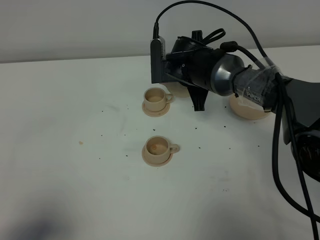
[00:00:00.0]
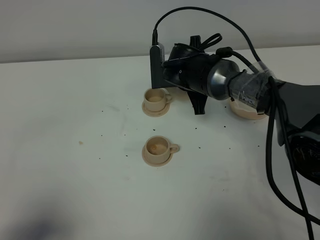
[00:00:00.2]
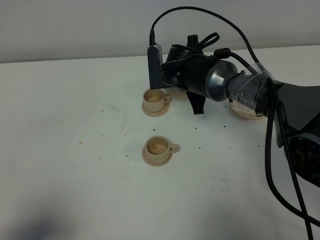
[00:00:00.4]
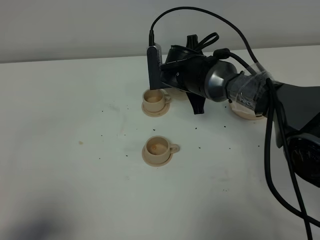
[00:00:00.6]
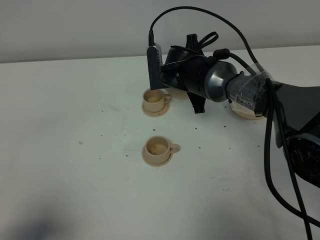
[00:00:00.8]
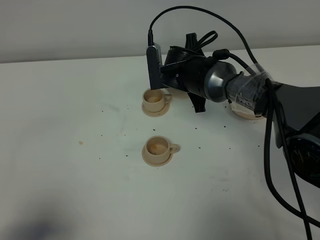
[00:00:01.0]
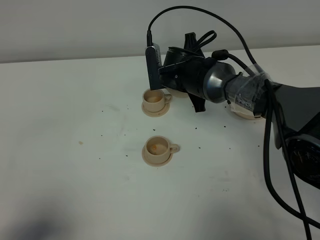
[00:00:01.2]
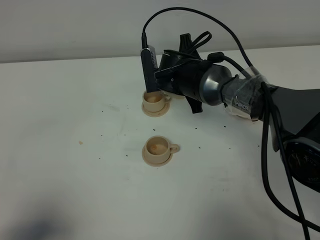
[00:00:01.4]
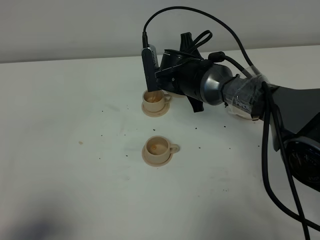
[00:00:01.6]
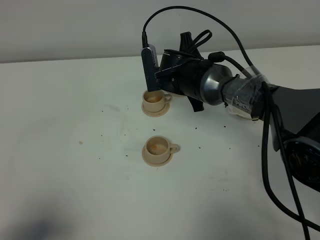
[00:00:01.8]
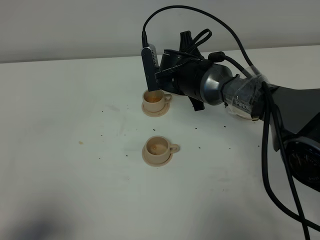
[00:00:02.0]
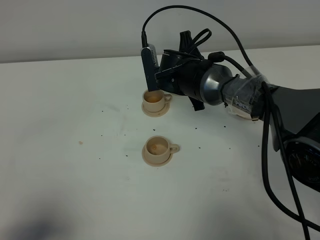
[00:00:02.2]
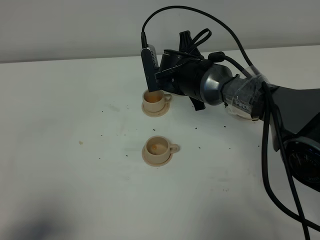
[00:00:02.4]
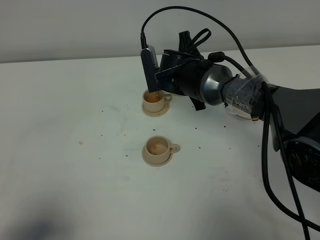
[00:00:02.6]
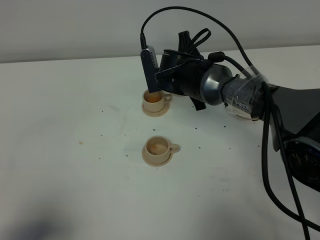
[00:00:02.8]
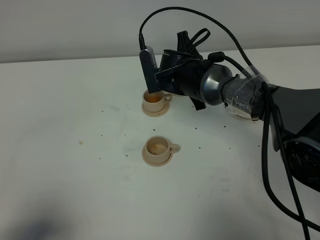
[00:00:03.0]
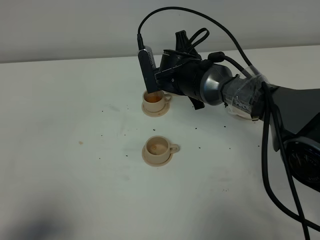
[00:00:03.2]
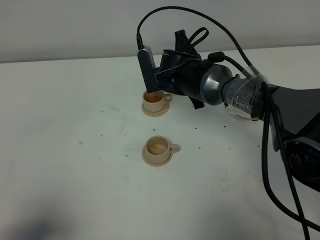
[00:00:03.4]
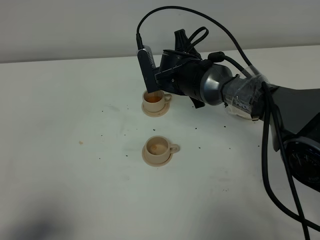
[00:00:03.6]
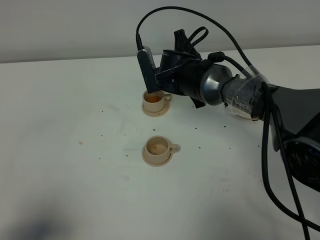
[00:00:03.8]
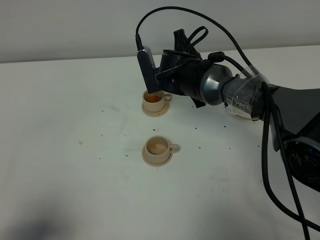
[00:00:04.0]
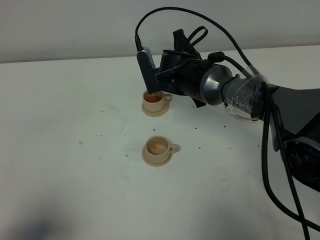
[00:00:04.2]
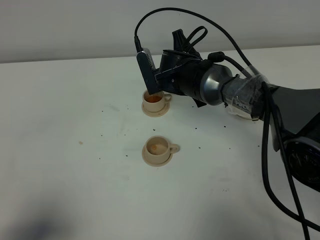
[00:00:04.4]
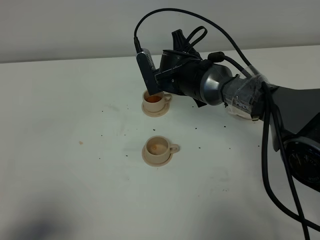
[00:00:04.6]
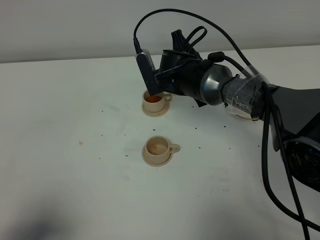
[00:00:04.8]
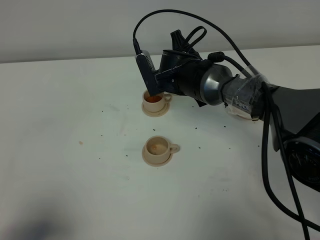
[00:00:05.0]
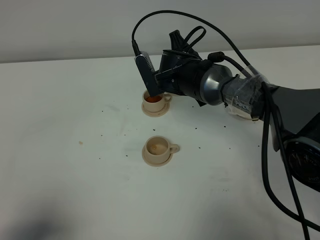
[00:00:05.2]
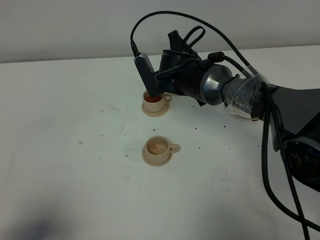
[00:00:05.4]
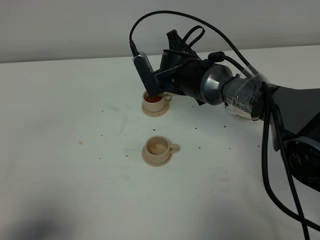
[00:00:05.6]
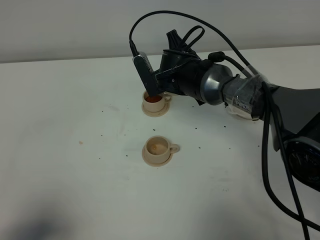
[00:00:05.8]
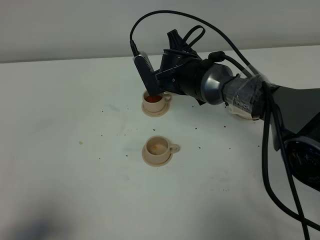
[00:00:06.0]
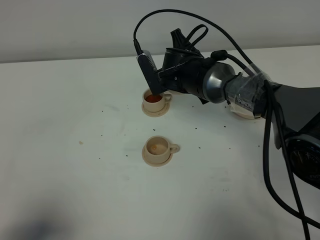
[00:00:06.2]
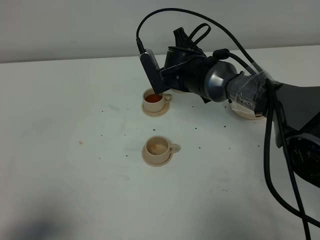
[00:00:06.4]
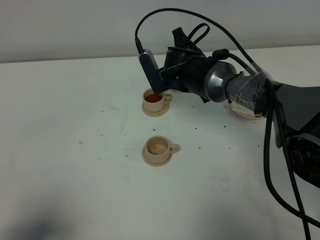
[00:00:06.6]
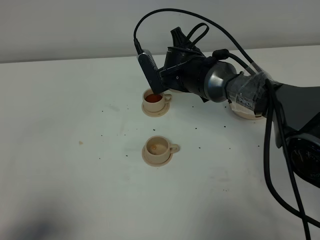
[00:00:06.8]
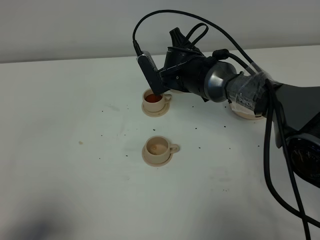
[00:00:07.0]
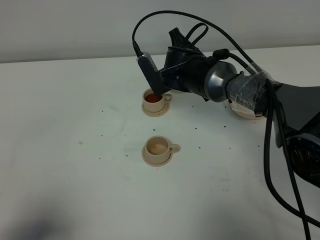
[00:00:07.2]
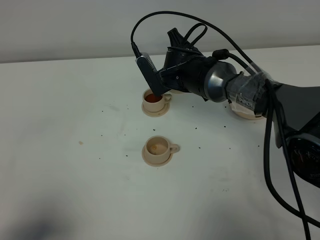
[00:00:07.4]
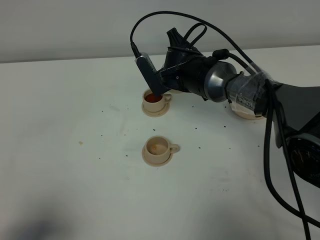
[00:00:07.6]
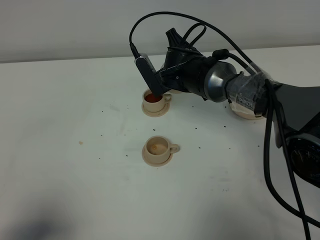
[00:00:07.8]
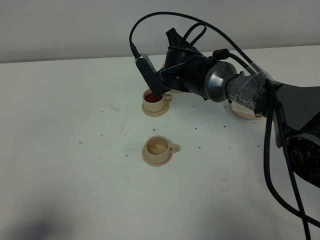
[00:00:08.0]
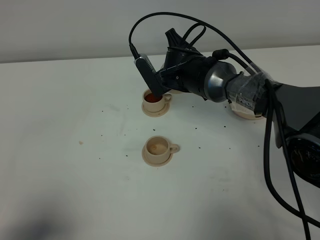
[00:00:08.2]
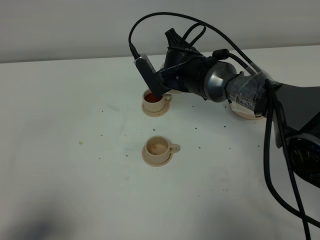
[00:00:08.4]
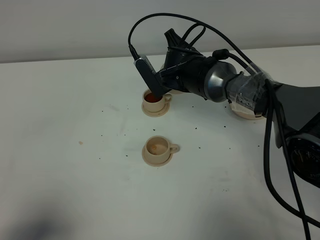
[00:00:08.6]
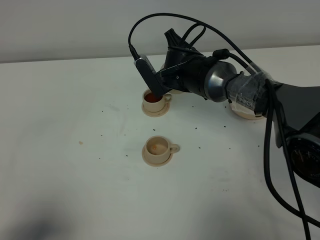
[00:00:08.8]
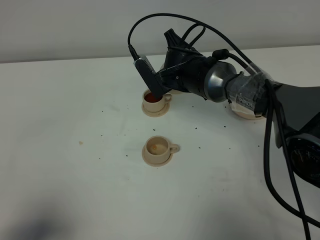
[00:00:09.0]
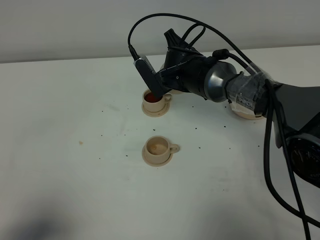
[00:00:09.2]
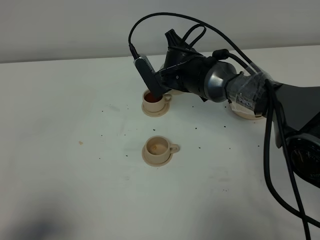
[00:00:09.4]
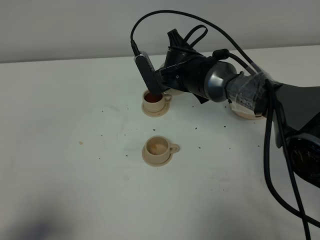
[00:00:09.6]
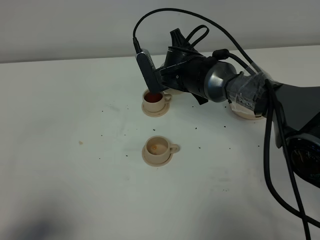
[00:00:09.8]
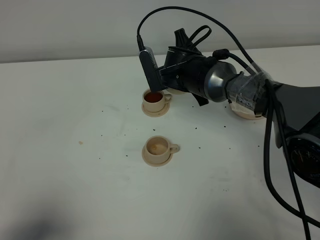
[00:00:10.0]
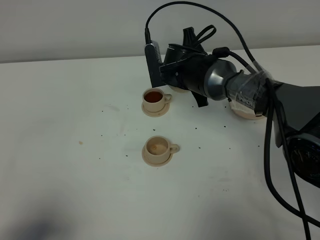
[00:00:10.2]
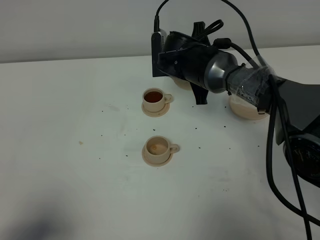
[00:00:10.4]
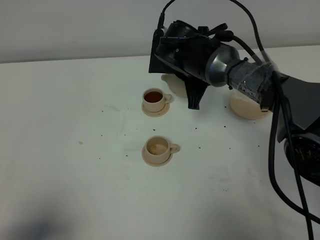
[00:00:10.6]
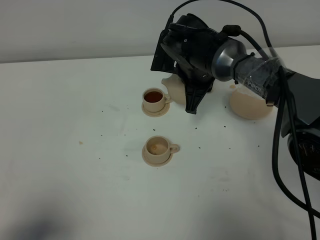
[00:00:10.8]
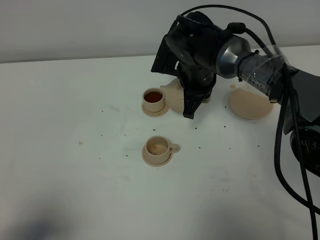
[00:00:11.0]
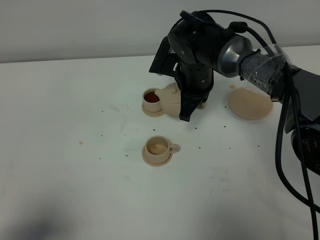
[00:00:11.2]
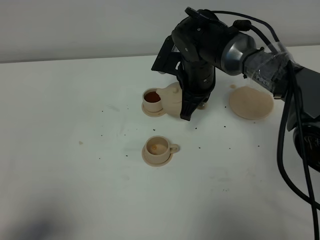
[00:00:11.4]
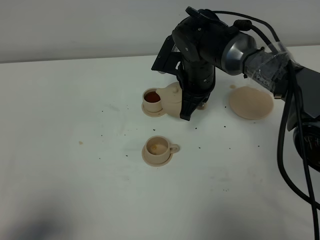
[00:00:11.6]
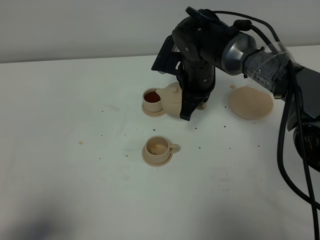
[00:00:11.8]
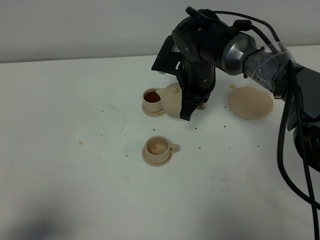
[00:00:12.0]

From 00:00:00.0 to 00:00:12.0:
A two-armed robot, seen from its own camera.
Task of the whole recording: grasp the brown teapot and pour the tea into the two brown teacups one by one, put the brown teapot back in its original place.
From 00:00:00.0 to 00:00:01.6: The grippers make only small movements.
From 00:00:01.6 to 00:00:03.0: The two grippers keep their place.
From 00:00:03.0 to 00:00:06.0: The grippers make only small movements.
From 00:00:06.0 to 00:00:07.6: Both grippers stay about where they are.
From 00:00:07.6 to 00:00:09.0: Both grippers stay put.

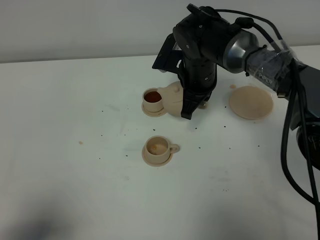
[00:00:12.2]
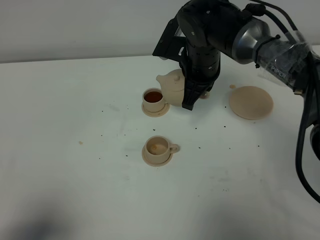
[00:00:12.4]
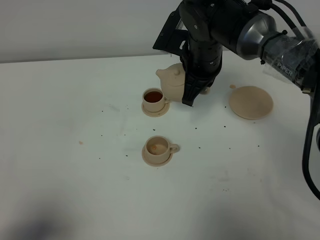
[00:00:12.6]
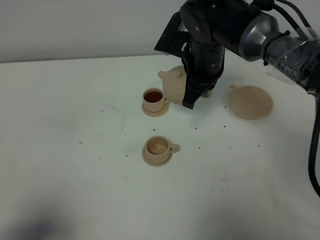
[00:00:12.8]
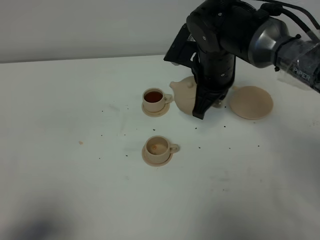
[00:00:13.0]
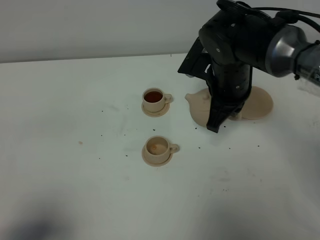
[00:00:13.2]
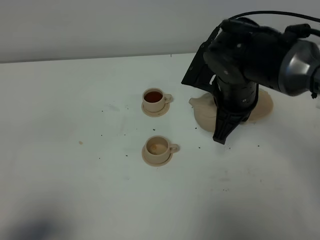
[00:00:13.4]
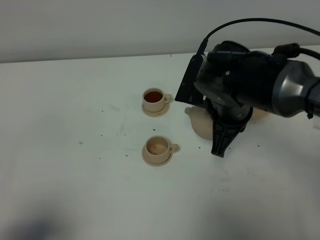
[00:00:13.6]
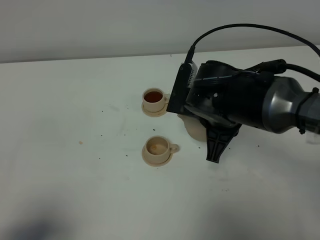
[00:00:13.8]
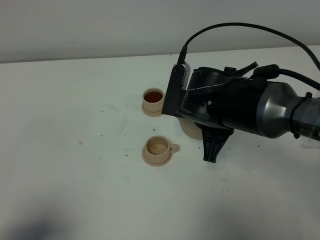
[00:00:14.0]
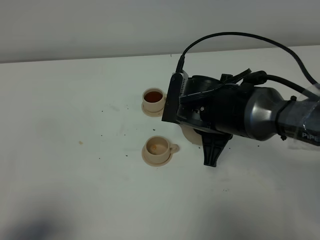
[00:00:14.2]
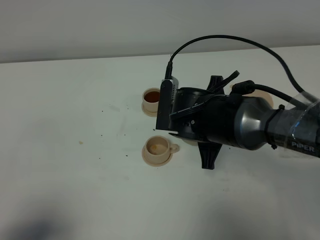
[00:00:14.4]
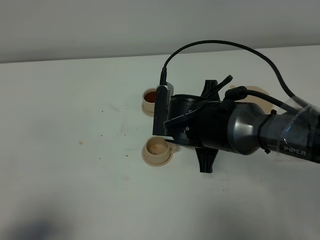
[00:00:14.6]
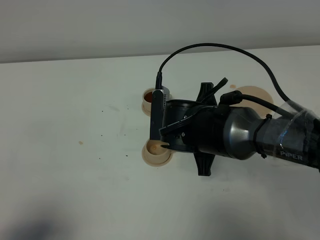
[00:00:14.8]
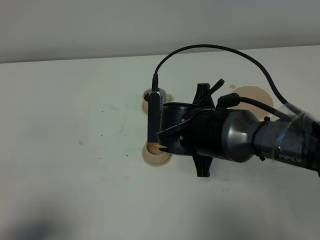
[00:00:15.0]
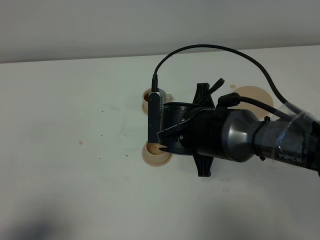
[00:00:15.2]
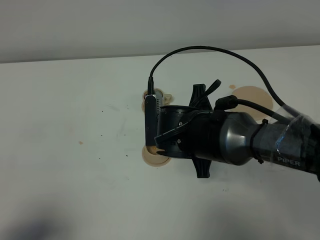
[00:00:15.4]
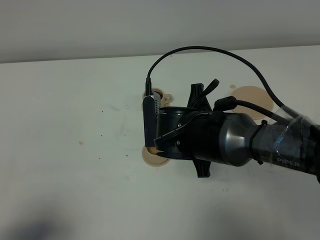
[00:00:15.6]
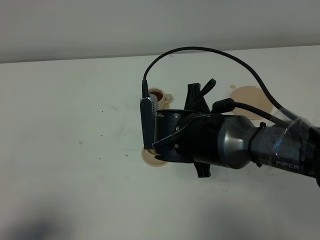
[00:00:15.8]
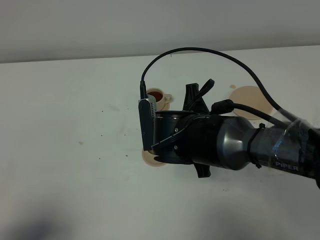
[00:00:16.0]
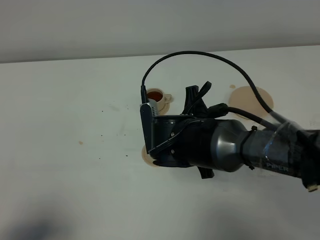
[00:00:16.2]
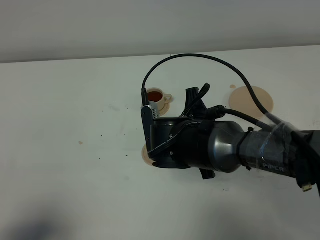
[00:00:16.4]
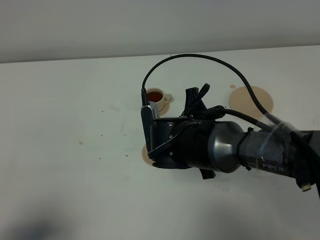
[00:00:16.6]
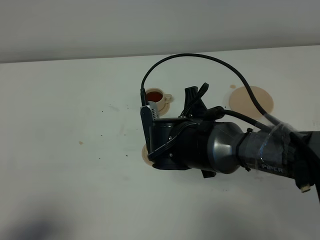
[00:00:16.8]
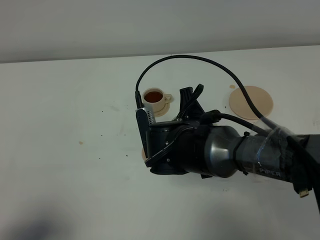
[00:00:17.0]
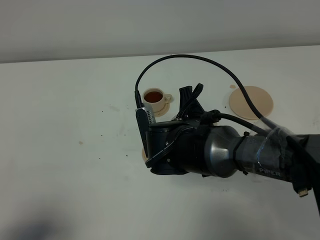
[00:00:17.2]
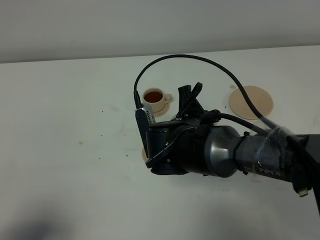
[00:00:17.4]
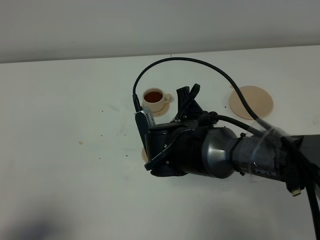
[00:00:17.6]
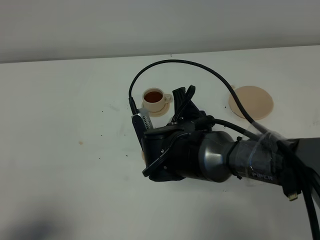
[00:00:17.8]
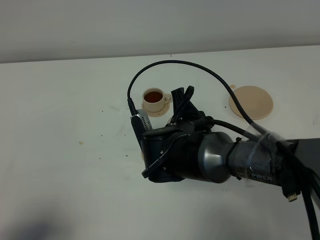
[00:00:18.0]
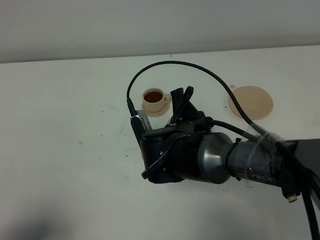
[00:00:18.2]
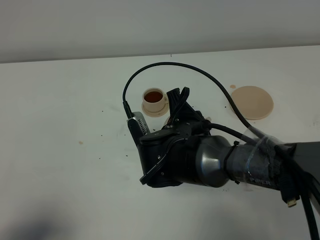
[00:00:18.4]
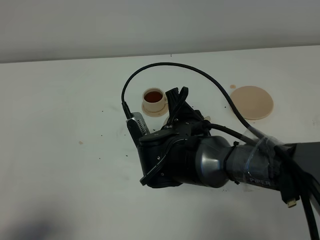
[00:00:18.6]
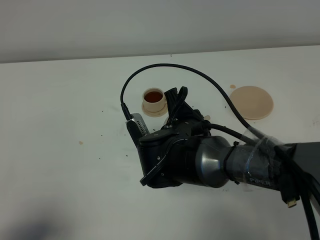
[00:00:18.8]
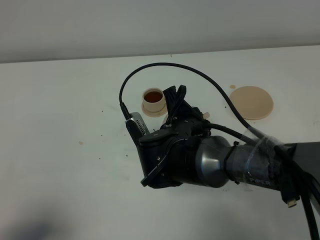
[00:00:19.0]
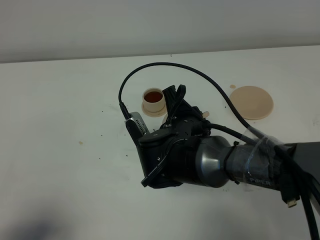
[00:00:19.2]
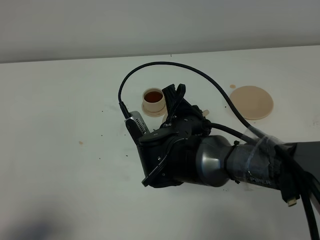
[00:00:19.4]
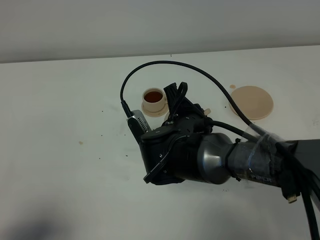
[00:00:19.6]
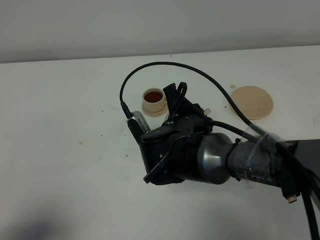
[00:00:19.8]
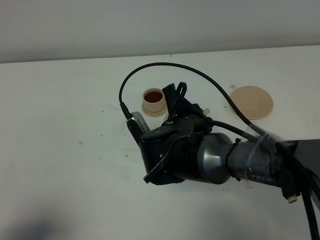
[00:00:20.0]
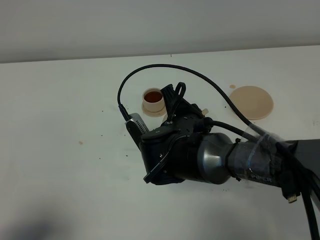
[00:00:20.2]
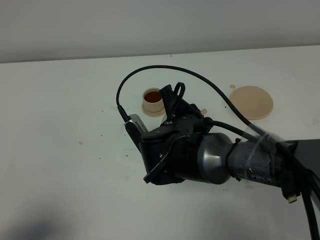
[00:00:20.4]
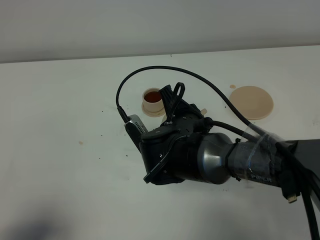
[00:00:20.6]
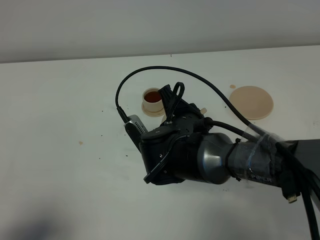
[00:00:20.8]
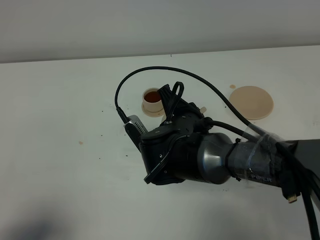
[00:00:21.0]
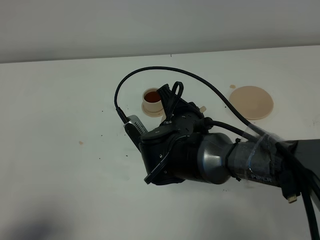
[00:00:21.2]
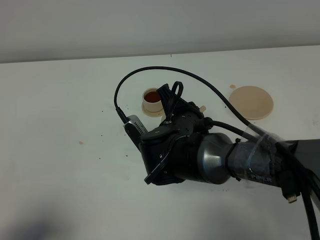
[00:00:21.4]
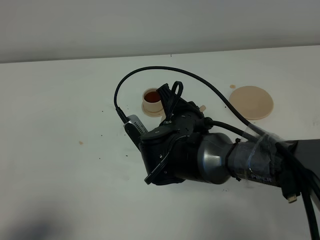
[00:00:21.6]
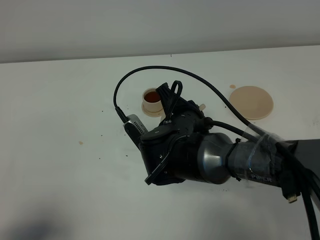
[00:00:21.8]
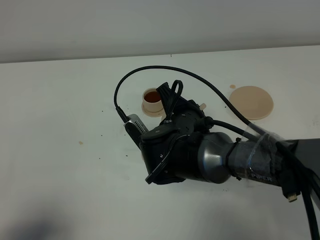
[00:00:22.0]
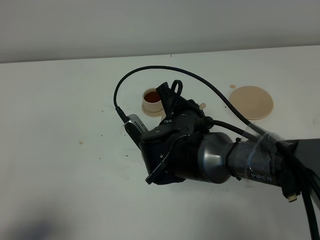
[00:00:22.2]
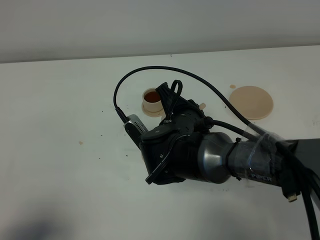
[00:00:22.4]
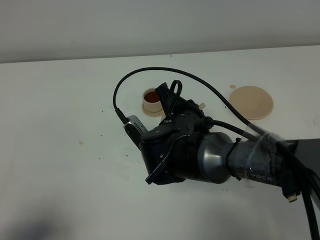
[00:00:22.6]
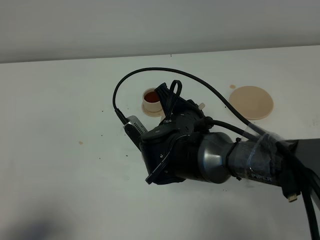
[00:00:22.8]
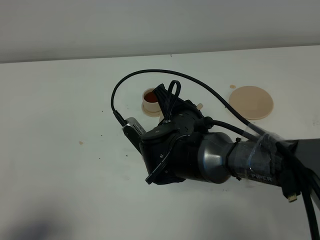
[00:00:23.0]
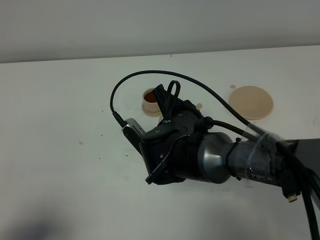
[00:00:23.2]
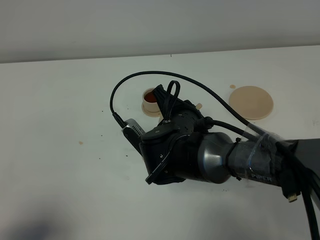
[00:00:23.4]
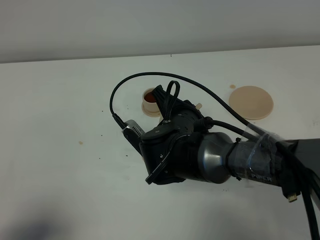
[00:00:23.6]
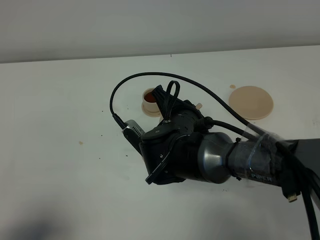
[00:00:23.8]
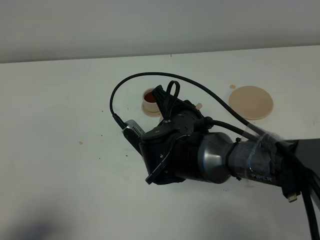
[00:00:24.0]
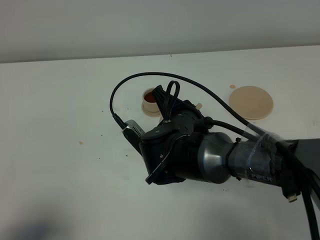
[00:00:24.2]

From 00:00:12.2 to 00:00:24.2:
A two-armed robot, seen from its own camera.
Task of the whole recording: grasp the brown teapot and pour the tea into the two brown teacups one by one, put the brown teapot back in its original place.
From 00:00:12.2 to 00:00:13.8: The right gripper moves backward, about 10 cm.
From 00:00:13.8 to 00:00:15.2: The right gripper ends up some 5 cm from where it was.
From 00:00:15.2 to 00:00:16.6: The grippers stay close to where they were, moving slightly.
From 00:00:16.6 to 00:00:18.2: The grippers stay close to where they were, moving slightly.
From 00:00:18.2 to 00:00:21.2: The grippers stay close to where they were, moving slightly.
From 00:00:21.2 to 00:00:22.6: The two grippers keep their place.
From 00:00:22.6 to 00:00:24.2: Both grippers stay about where they are.
